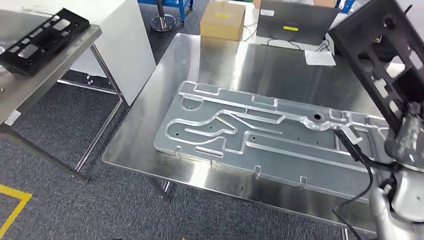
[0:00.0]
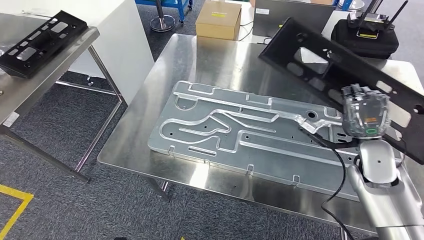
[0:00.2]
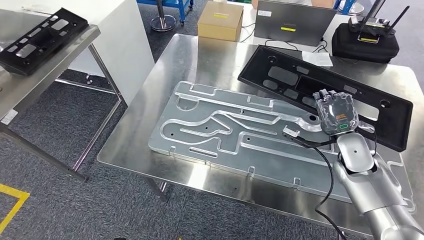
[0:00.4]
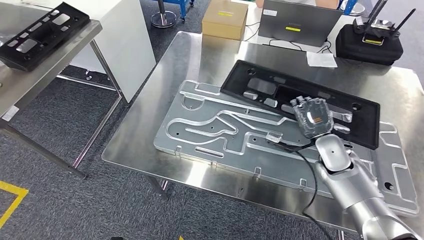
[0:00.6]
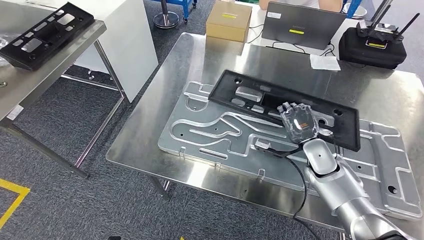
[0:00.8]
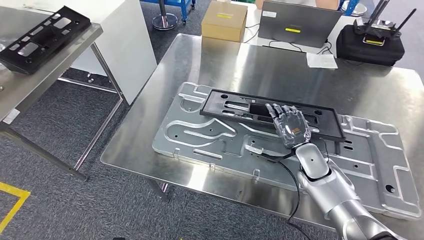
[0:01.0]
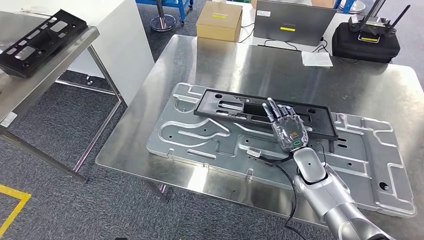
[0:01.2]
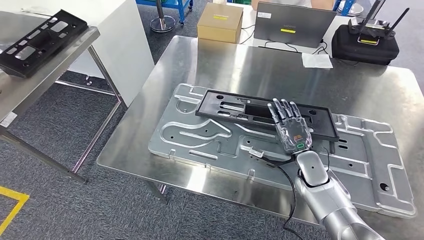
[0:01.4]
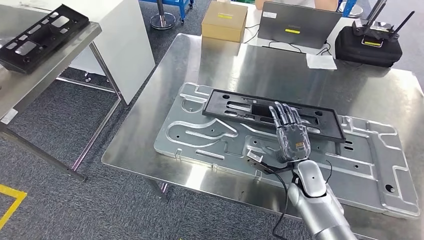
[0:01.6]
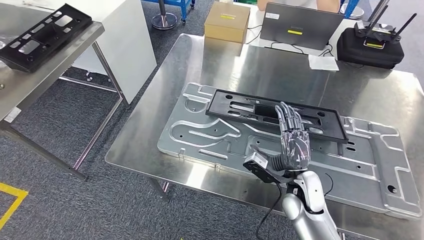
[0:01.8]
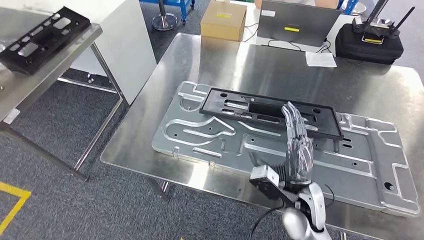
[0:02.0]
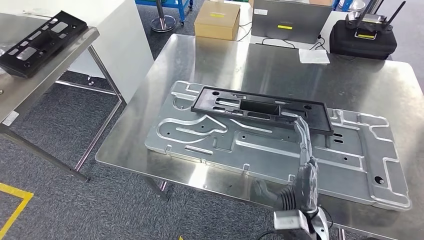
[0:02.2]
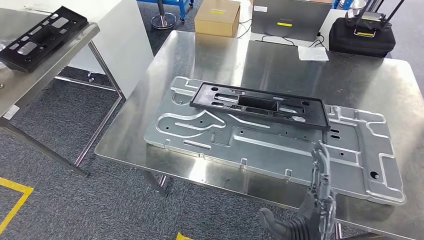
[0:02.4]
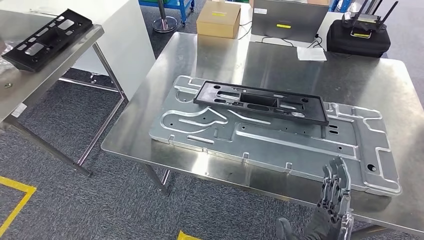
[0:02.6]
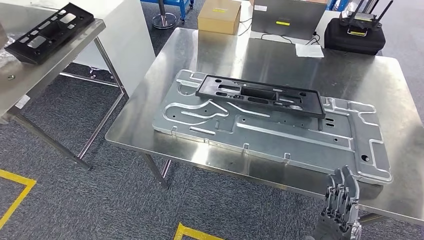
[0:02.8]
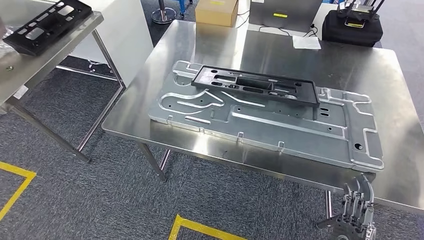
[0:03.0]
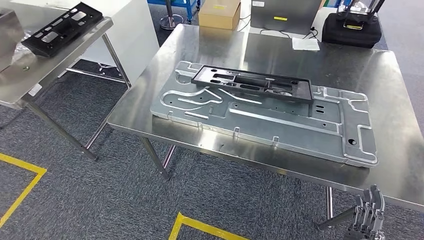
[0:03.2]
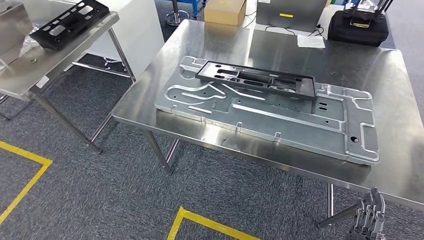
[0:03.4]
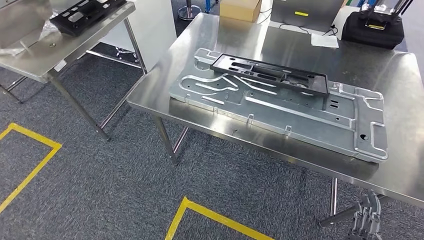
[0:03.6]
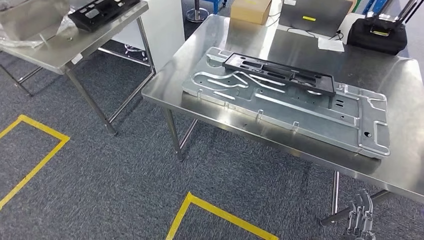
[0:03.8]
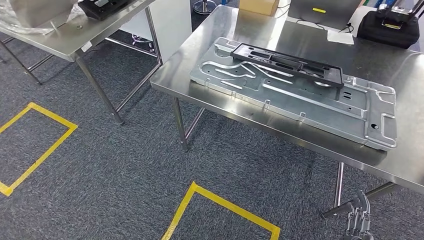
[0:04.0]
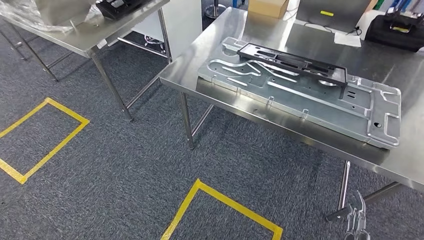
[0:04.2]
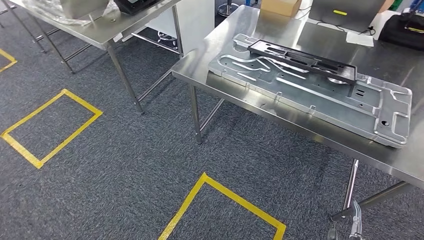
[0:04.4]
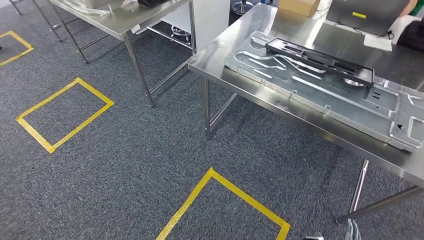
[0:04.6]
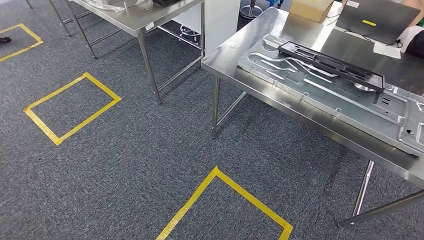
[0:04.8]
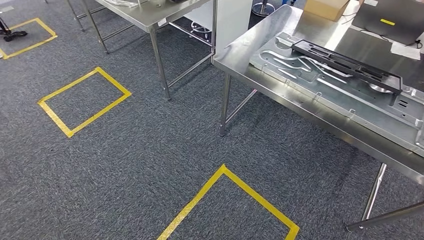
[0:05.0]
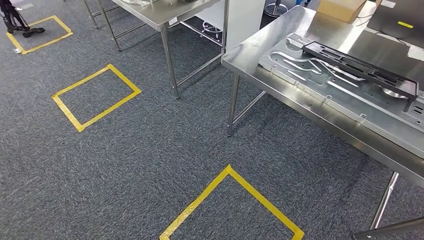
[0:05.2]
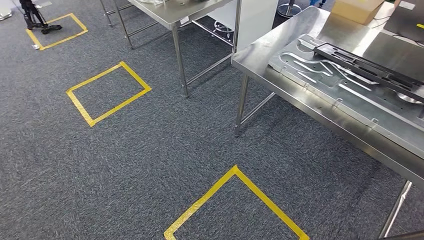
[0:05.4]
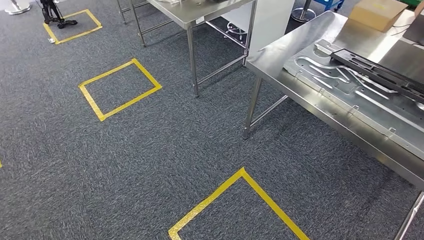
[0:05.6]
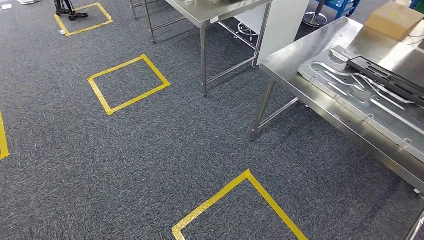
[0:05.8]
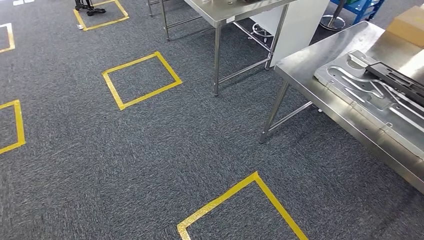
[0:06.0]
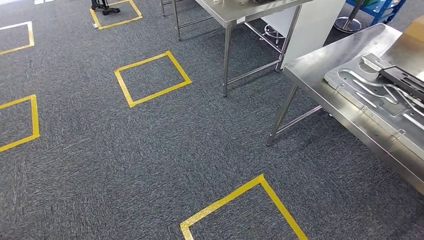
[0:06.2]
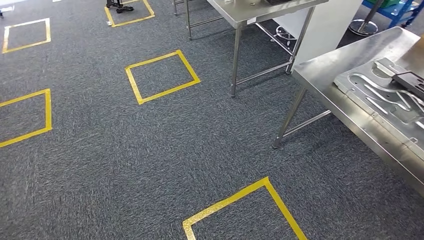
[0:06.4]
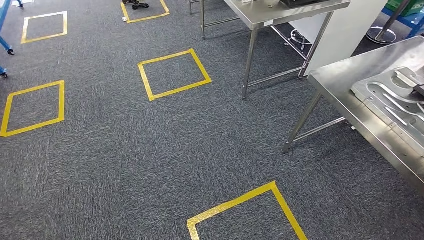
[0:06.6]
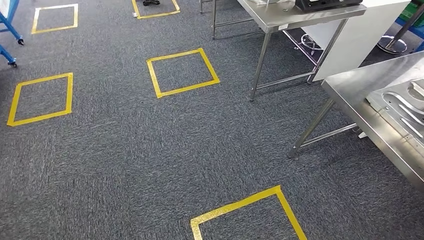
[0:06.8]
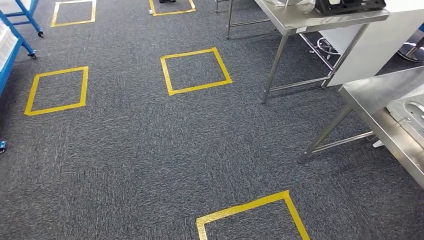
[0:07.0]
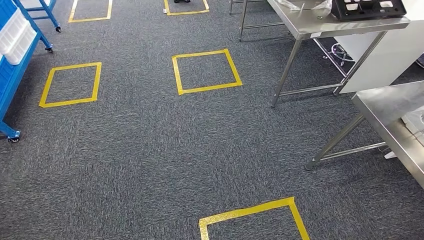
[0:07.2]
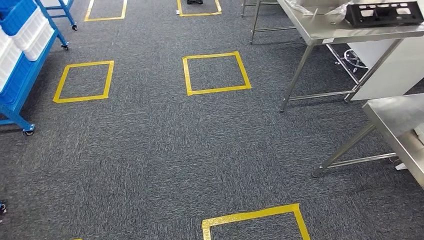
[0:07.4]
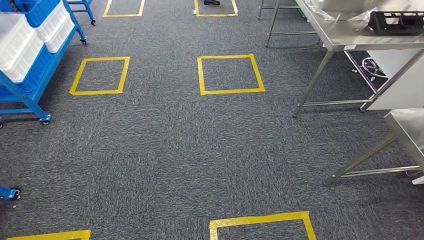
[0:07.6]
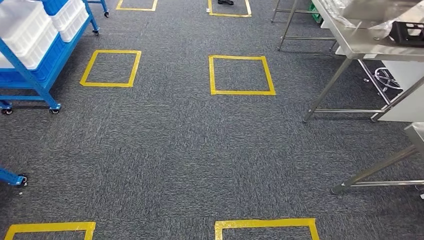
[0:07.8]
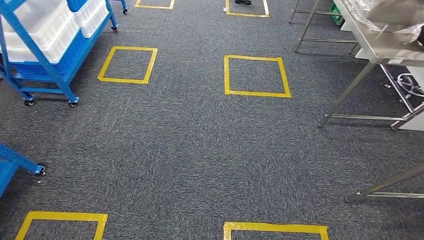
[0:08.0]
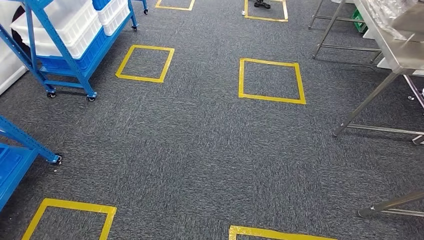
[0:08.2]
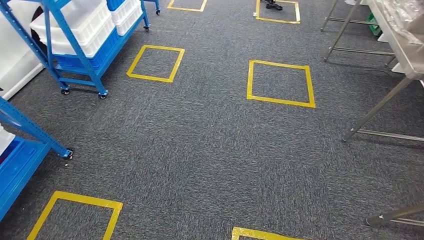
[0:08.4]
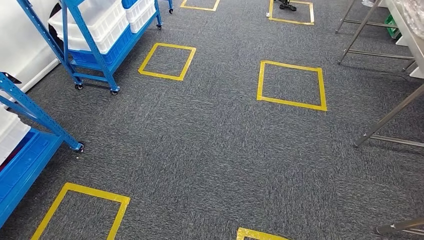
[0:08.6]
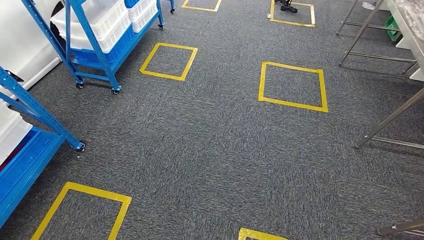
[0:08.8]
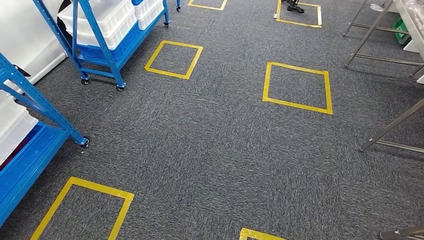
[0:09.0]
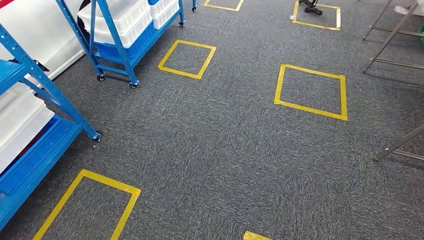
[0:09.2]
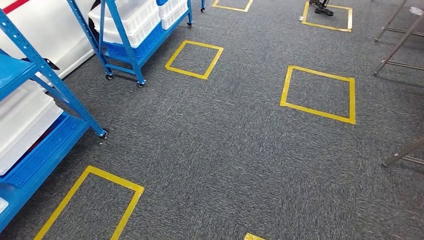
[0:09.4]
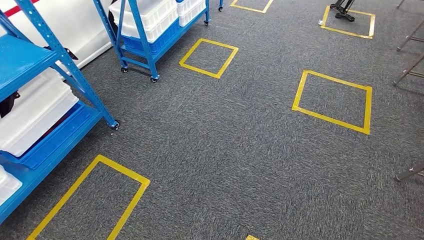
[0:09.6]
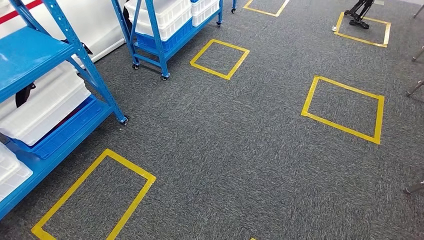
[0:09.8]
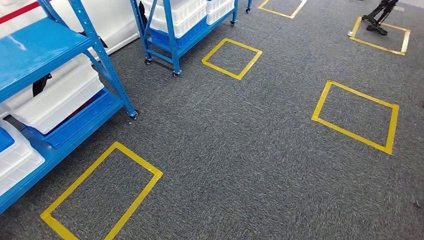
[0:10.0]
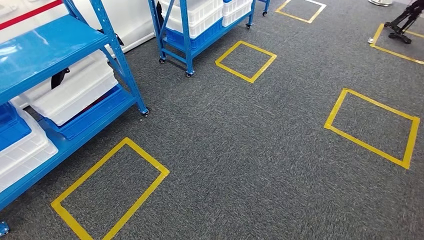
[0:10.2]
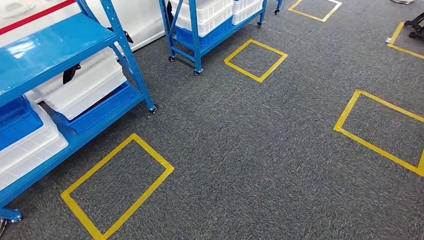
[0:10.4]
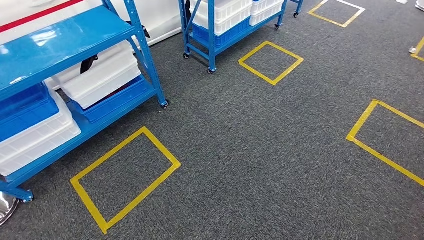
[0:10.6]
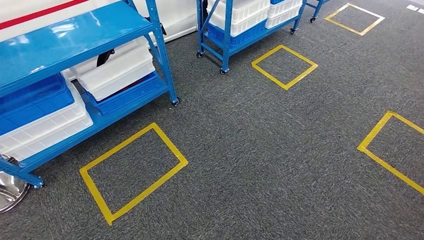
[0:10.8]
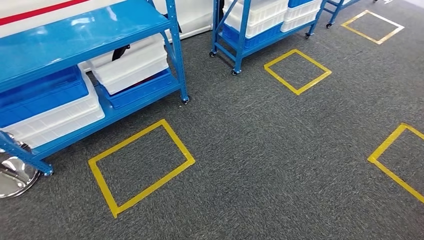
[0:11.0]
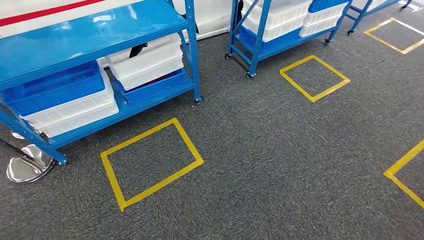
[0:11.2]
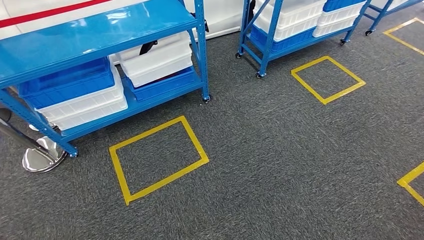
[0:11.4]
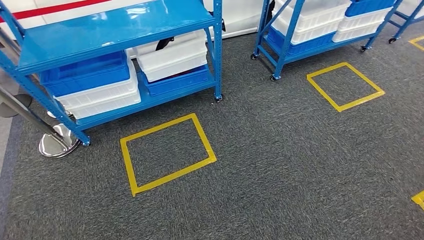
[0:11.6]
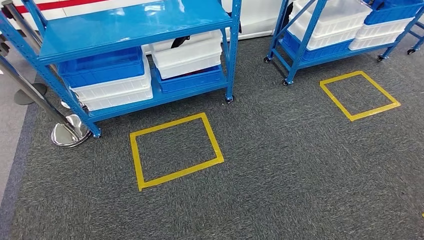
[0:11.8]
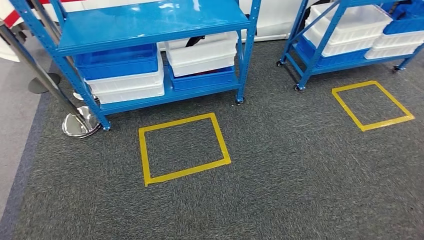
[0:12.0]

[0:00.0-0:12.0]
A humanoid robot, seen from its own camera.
Step, 0:00.0 to 0:04.0: Insert the large material into the corresponding slot on the workbench.

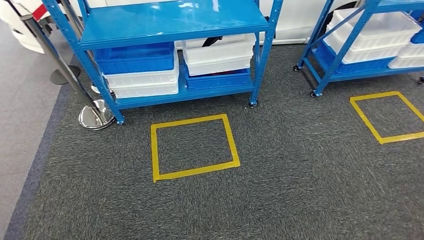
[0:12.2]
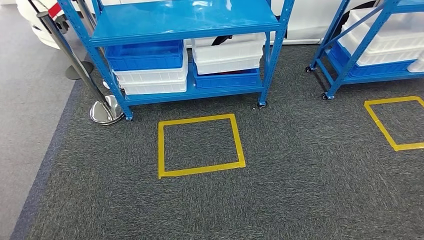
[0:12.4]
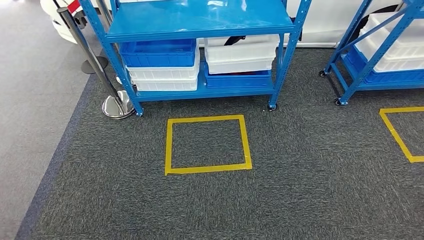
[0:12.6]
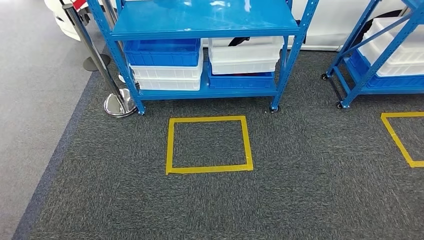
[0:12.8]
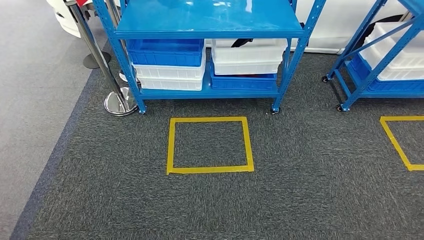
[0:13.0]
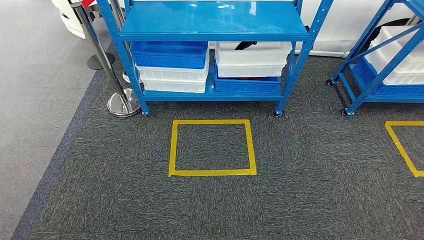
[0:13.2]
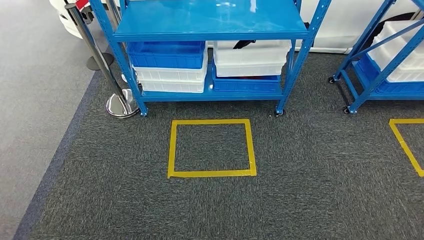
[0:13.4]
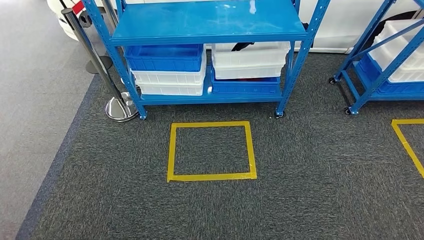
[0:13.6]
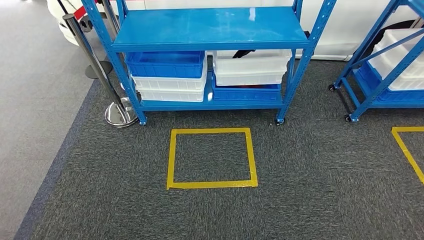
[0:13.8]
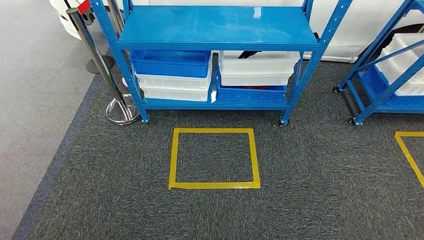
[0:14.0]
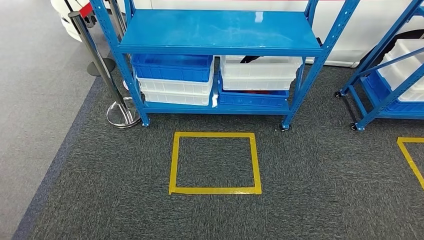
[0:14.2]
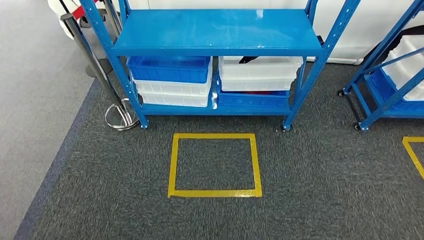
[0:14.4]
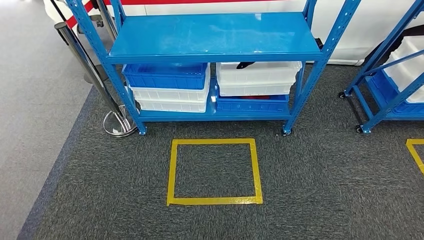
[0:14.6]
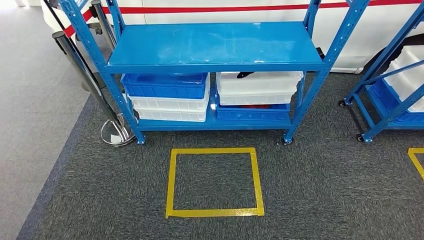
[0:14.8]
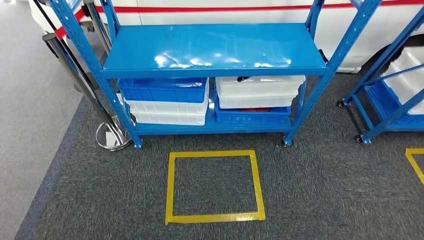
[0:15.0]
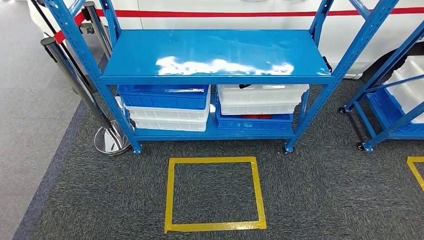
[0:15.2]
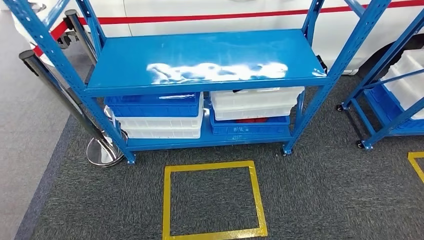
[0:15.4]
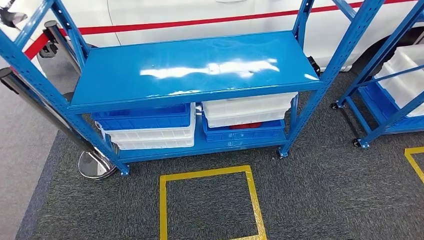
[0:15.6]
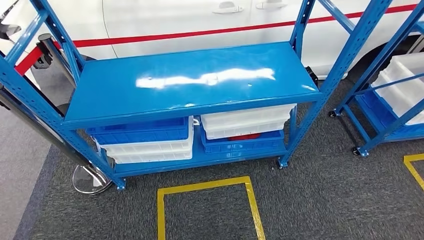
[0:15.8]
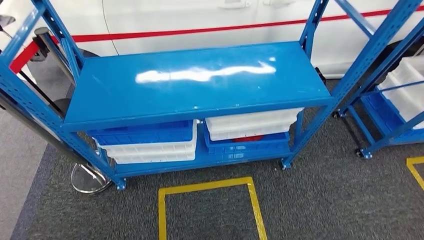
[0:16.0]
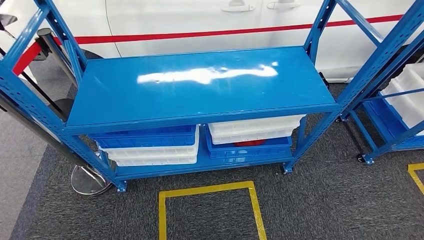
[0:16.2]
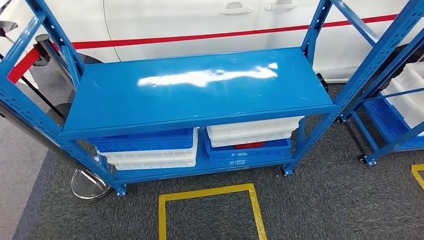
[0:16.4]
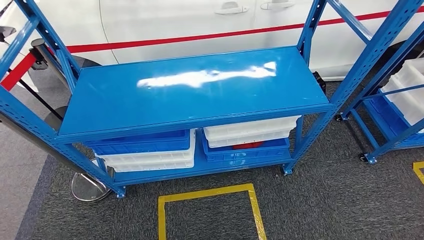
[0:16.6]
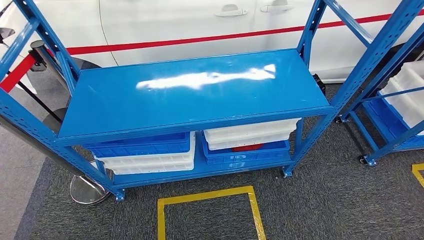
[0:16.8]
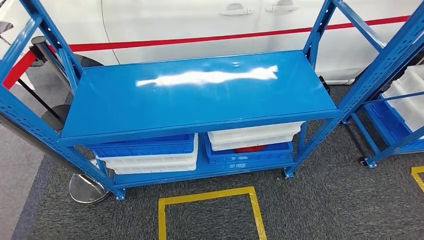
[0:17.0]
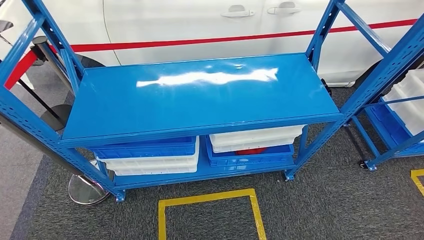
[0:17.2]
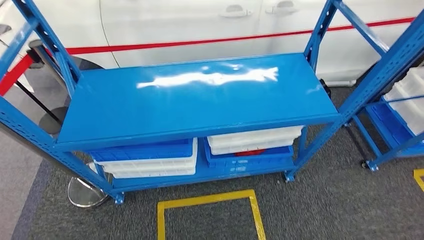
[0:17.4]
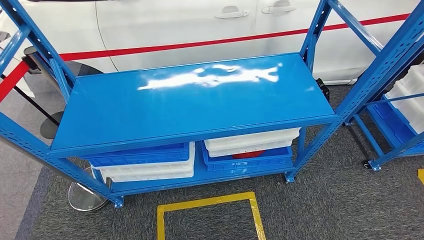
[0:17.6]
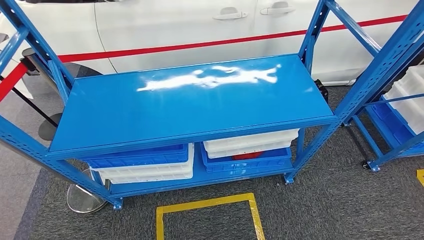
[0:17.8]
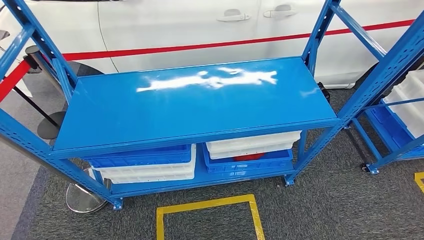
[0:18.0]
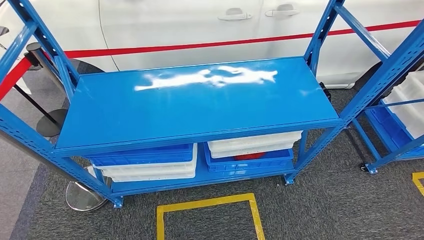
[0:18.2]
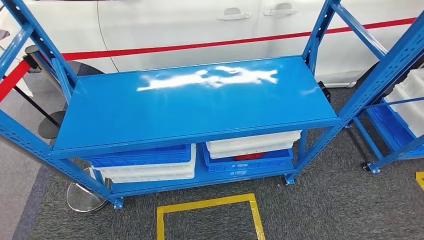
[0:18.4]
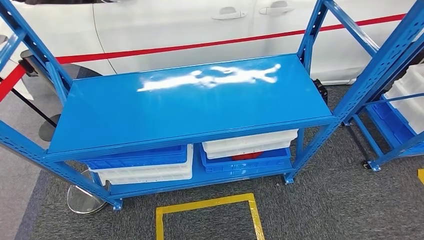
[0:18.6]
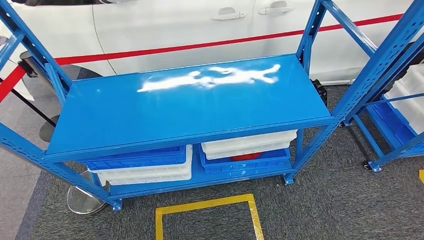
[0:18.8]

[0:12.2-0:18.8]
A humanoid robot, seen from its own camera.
Step, 0:12.2 to 0:18.8: Move to the initial position of the shelf.
